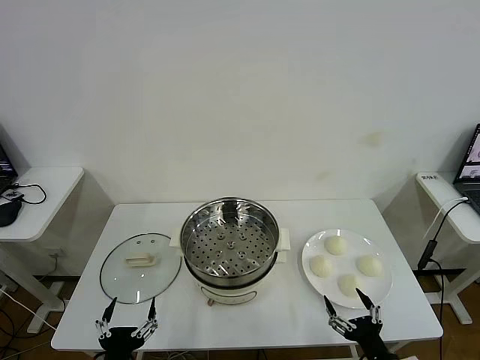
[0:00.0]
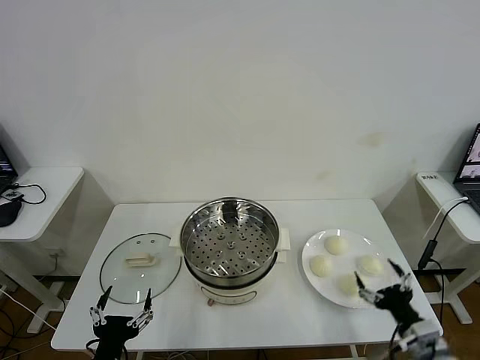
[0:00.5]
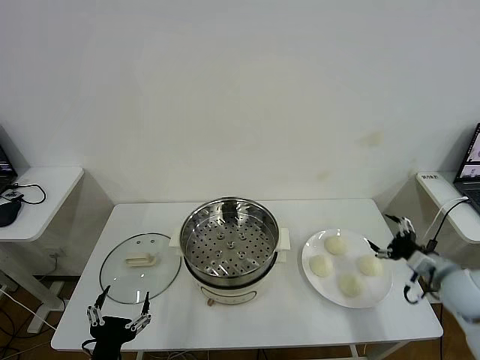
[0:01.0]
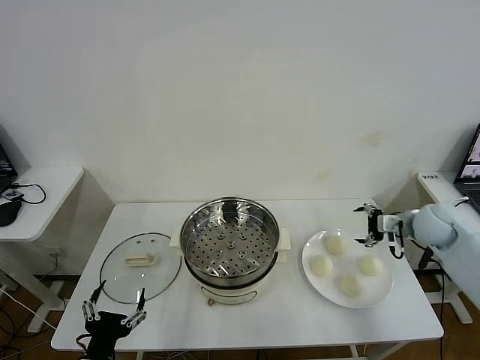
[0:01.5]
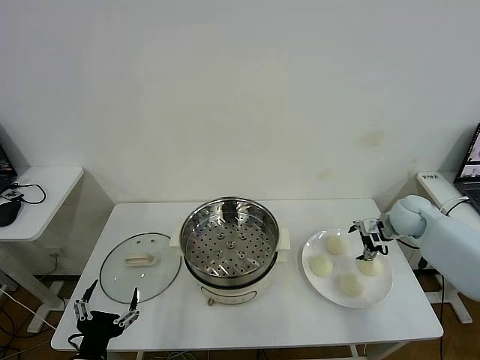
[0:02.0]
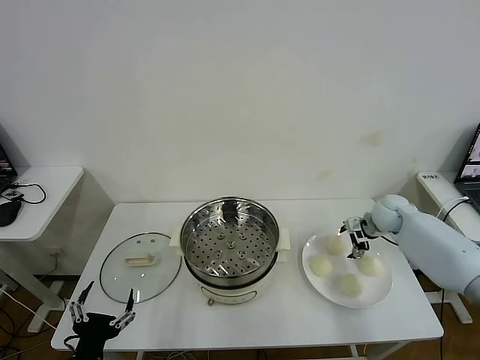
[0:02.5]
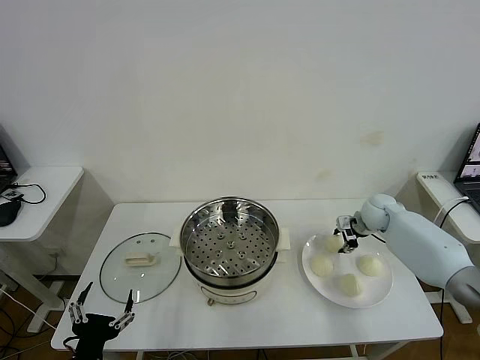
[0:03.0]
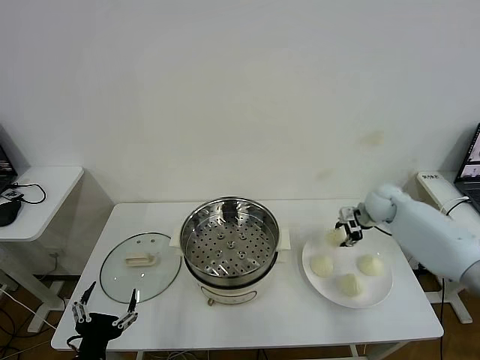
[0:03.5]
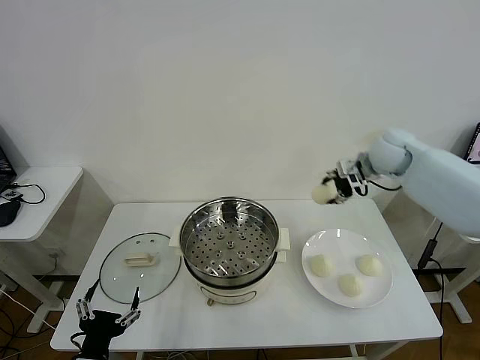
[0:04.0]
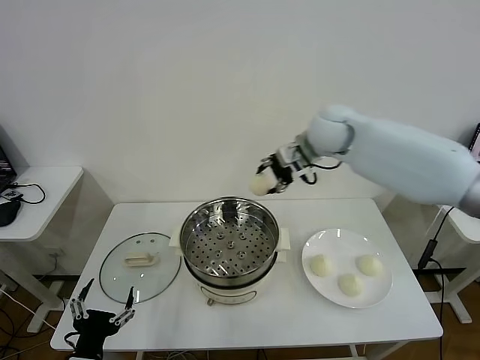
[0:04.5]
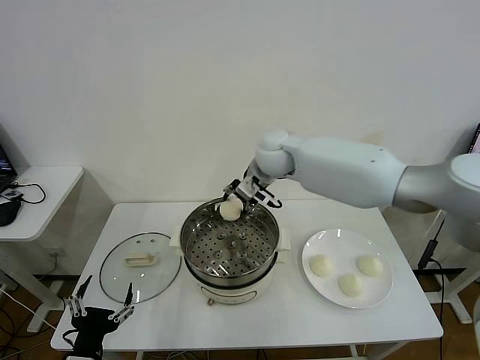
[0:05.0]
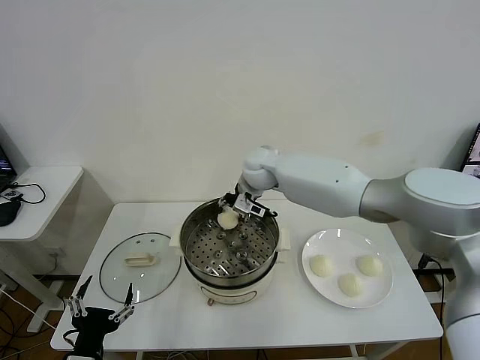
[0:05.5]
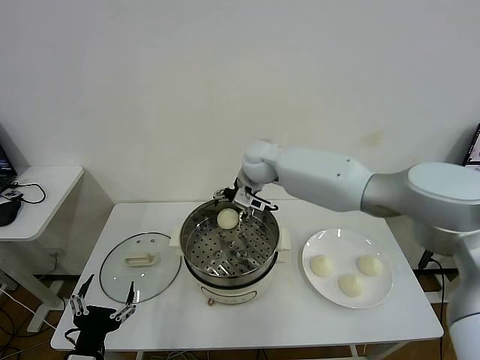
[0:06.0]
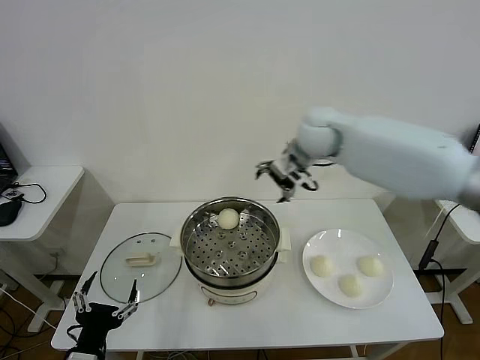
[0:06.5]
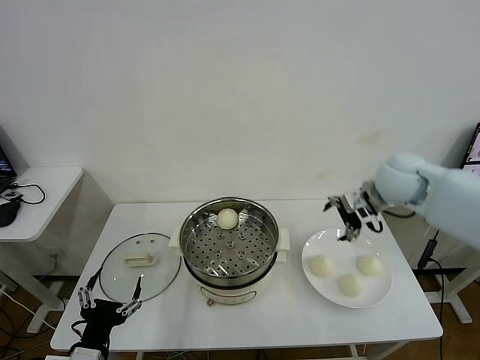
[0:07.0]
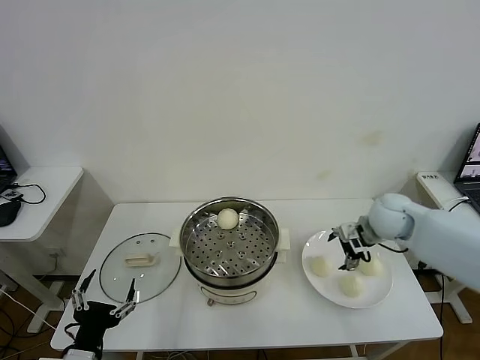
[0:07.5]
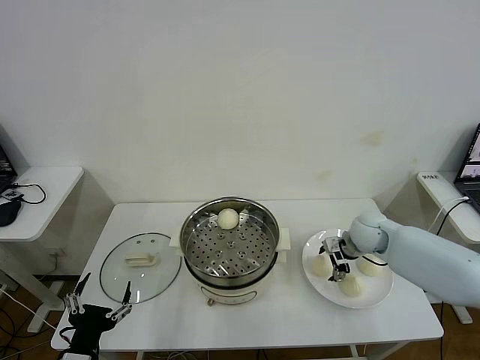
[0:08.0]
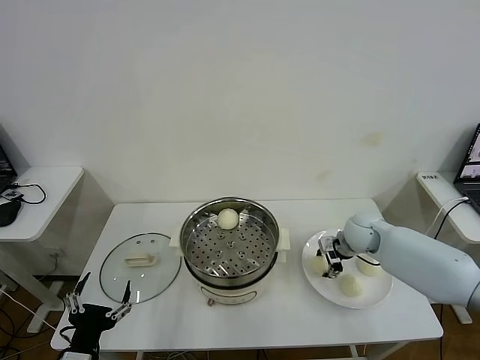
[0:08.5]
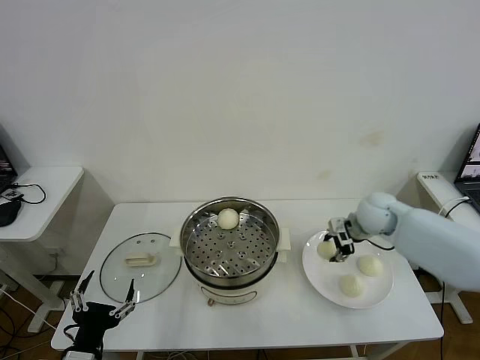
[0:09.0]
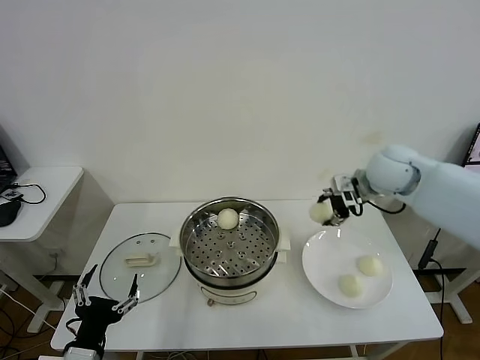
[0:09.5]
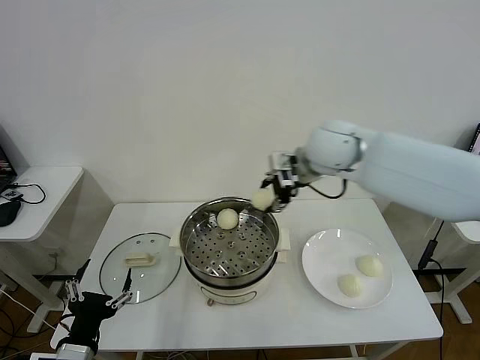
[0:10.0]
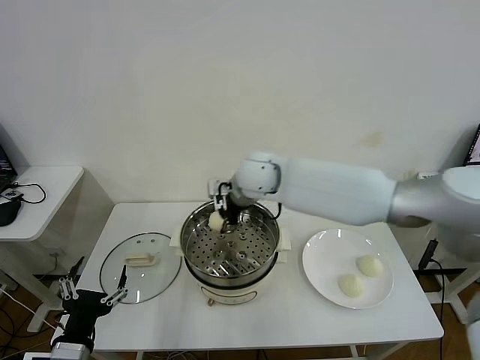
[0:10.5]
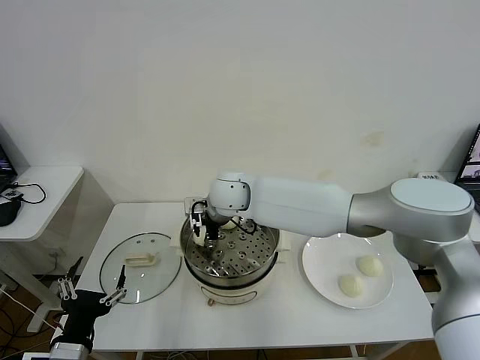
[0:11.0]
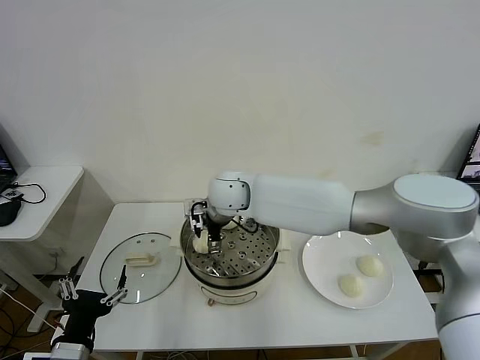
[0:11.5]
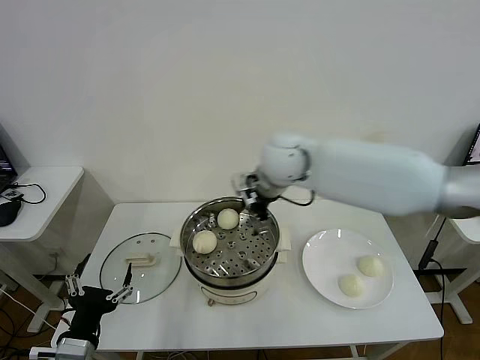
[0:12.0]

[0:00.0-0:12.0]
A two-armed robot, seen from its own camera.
Task of the whole recording: take steamed baozi put them in steamer then cover it.
Step, 0:00.0 to 0:03.0: Grasp the baozi in the plate with right gripper.
Step, 0:03.5 to 0:05.5: Place the baozi on the steamer with right gripper.
Step, 0:06.0 to 0:08.5: Grasp the baozi in the plate with right gripper.
Step, 0:09.0 to 0:11.5: Place the baozi on the steamer with right gripper.
0:02.0 to 0:04.0: The right gripper goes some 15 cm upward and to the left, and closes.
0:04.0 to 0:06.0: The right gripper moves to the left, some 30 cm, and opens.
0:06.0 to 0:08.0: The right gripper is displaced to the right and downward by some 30 cm.
0:08.0 to 0:10.0: The right gripper goes approximately 30 cm upward and to the left, and closes up.
0:10.0 to 0:12.0: The right gripper is displaced to the left by about 10 cm, and opens its fingers.

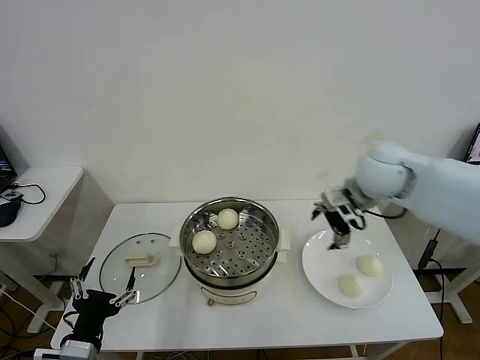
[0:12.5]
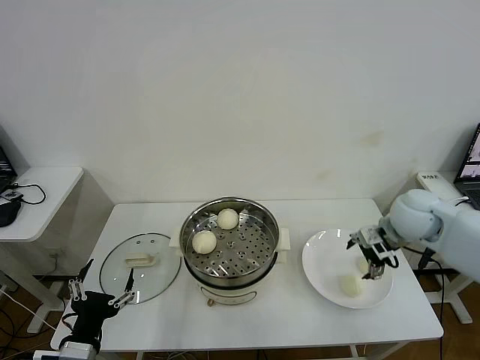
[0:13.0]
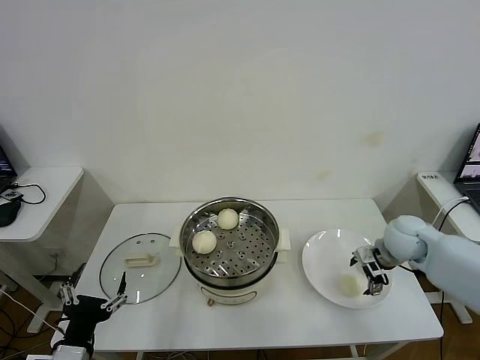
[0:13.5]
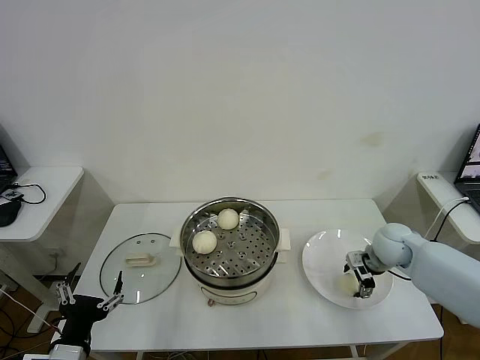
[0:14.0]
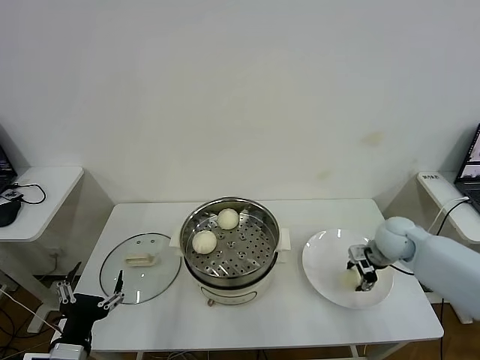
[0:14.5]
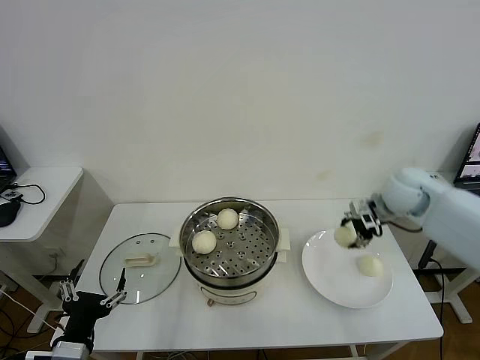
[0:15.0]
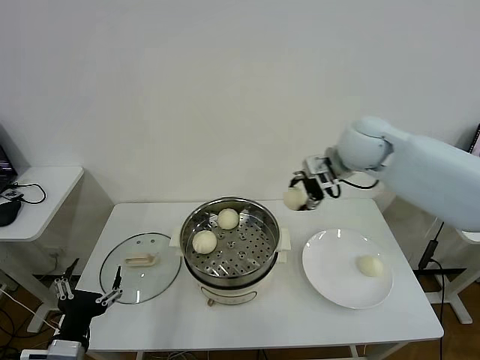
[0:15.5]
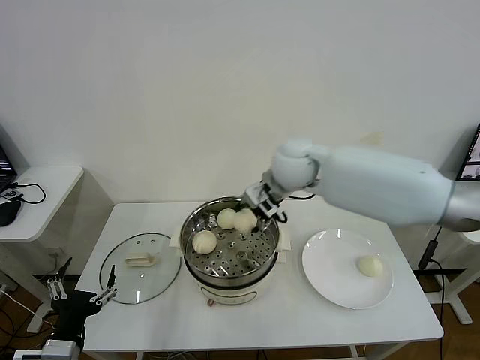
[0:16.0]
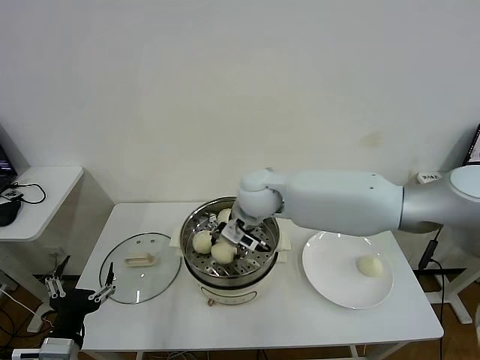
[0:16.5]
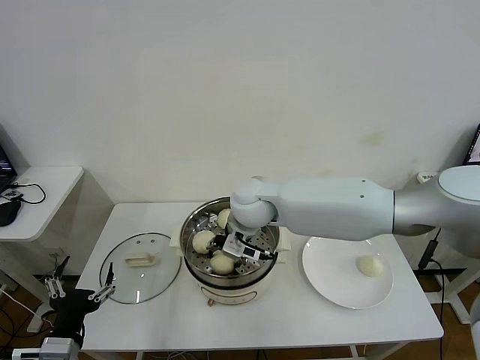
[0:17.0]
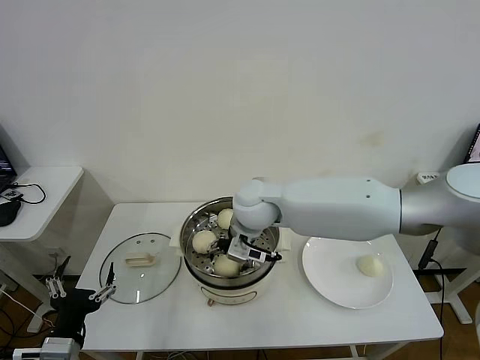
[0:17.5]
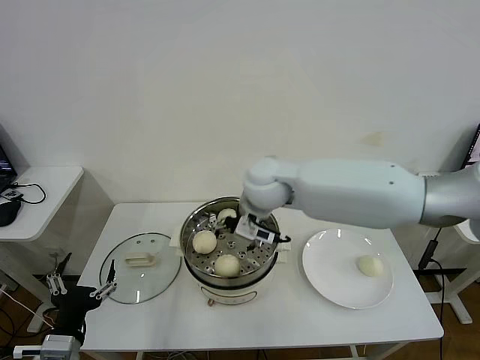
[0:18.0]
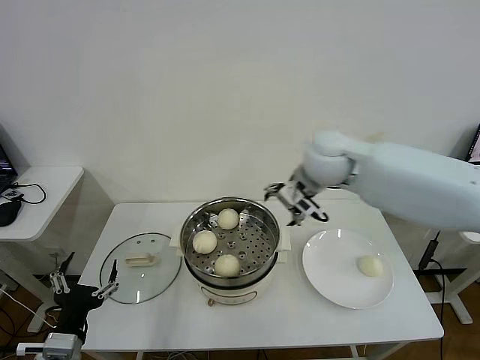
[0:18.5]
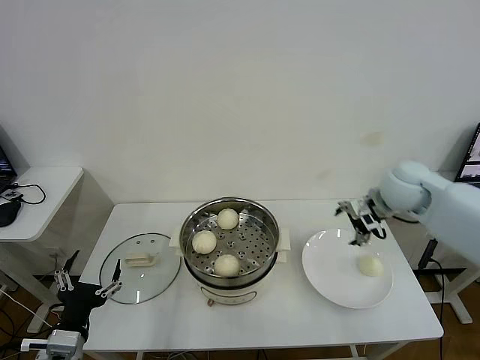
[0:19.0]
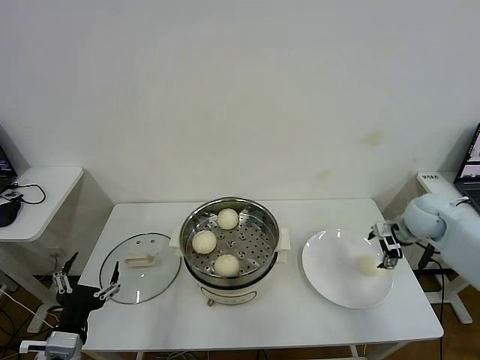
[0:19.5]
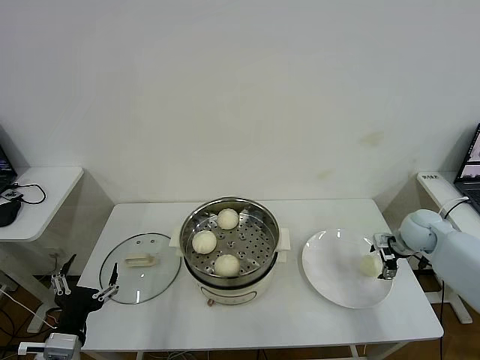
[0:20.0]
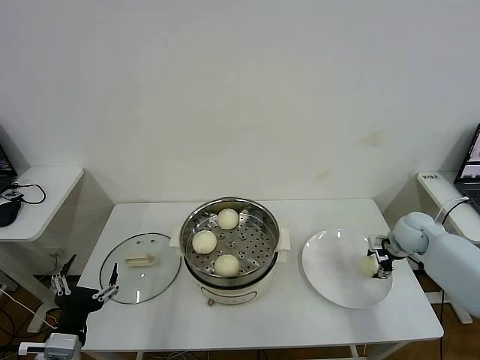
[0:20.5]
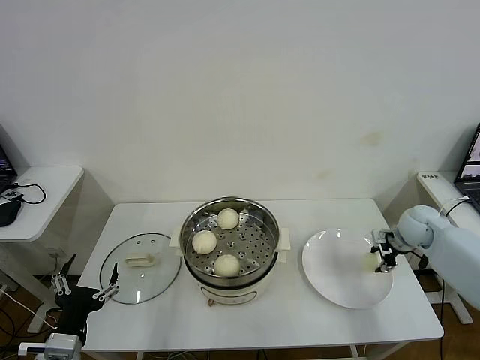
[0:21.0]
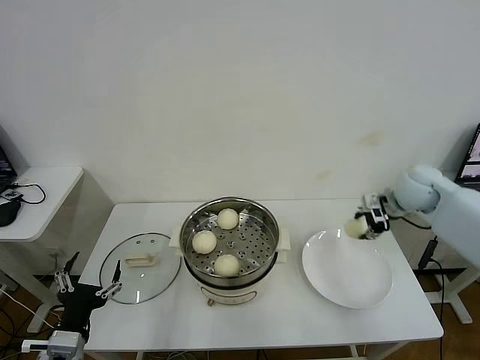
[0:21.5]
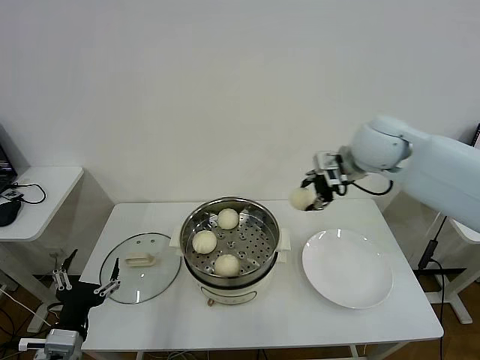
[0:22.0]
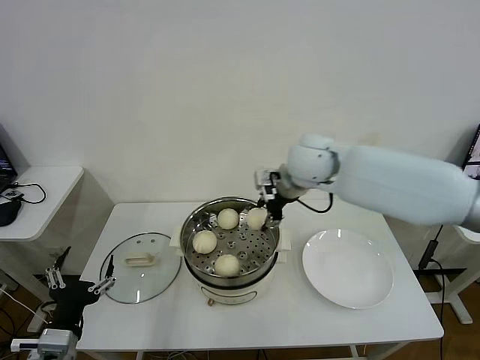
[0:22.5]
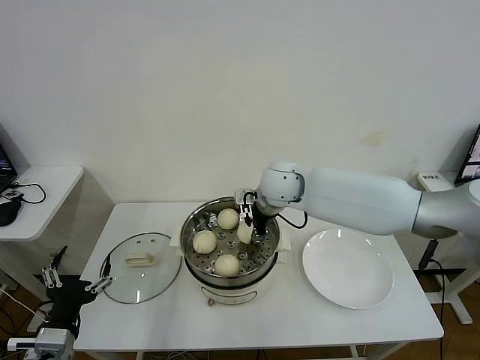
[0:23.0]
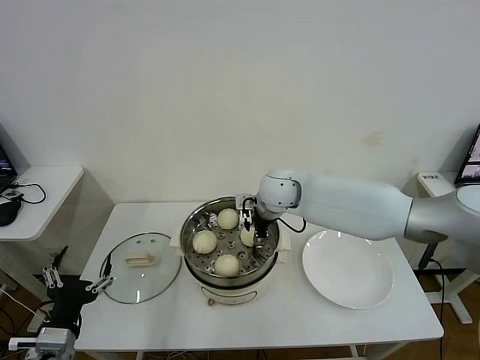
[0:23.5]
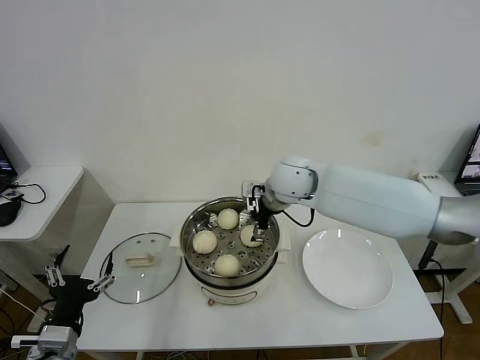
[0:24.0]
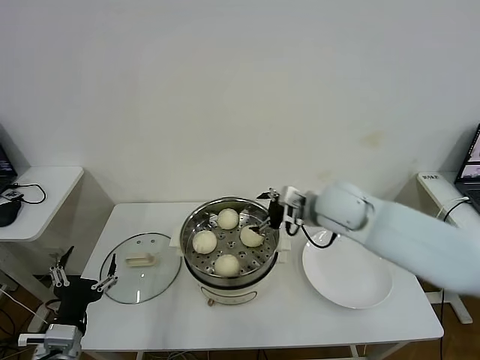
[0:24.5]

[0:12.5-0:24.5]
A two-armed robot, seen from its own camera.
Task of the whole recording: take steamed baozi put them in steamer then cover it.
Step, 0:12.5 to 0:14.0: Grasp the baozi in the plate with right gripper.
Step, 0:14.5 to 0:17.5: Place the baozi on the steamer with right gripper.
Step, 0:18.0 to 0:20.5: Grasp the baozi in the plate with right gripper.
Step, 0:21.0 to 0:23.5: Place the baozi on the steamer with right gripper.
0:12.5 to 0:14.5: The right gripper moves downward and to the right, roughly 25 cm, and closes.
0:14.5 to 0:16.5: The right gripper goes roughly 35 cm to the left and upward.
0:16.5 to 0:18.5: The right gripper shifts roughly 15 cm to the right and upward, and opens.
0:18.5 to 0:20.5: The right gripper heads to the right and downward, covering roughly 35 cm, and closes up.
0:20.5 to 0:22.5: The right gripper is displaced to the left and upward by roughly 35 cm, and closes.
0:22.5 to 0:24.5: The right gripper goes some 5 cm downward, and opens its fingers.

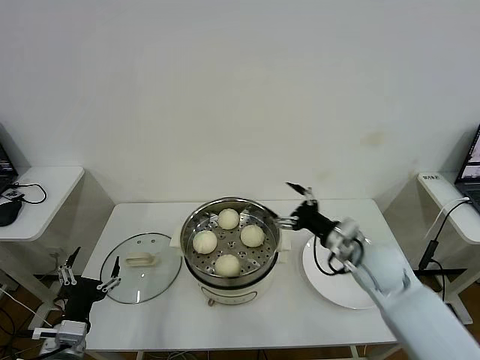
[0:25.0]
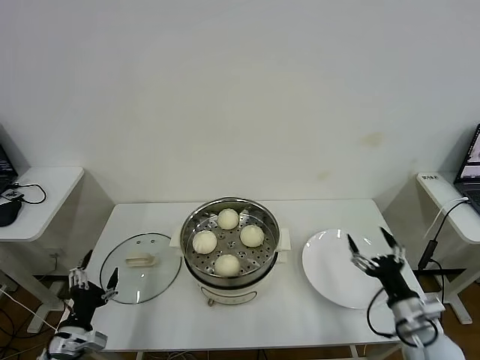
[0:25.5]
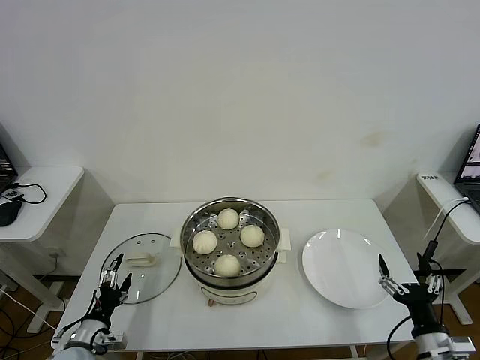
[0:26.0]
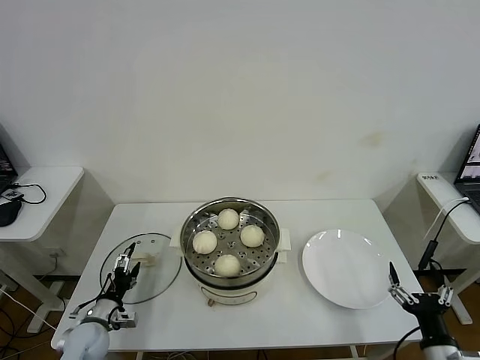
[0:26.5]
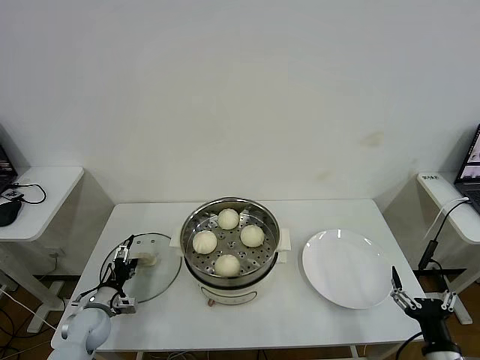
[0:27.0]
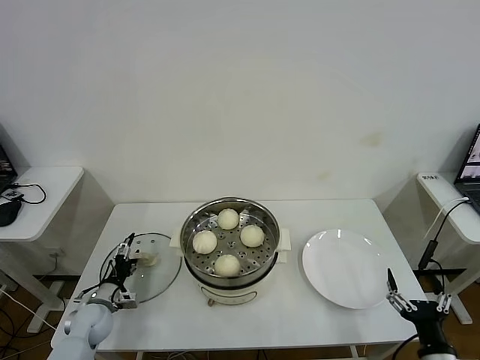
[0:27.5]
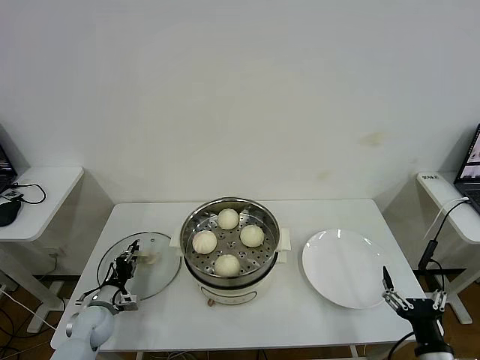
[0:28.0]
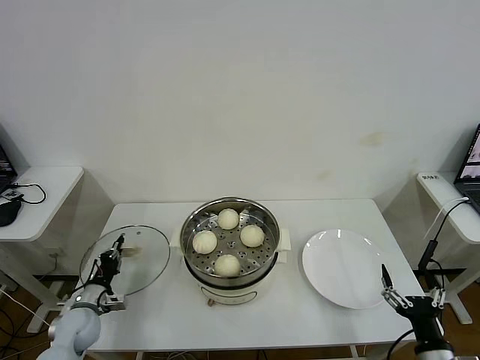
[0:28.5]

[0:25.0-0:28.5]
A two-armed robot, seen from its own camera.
Task of the whole recording: take steamed baozi put them in steamer then cover it.
Step, 0:25.0 to 0:28.0: Grasp the pot lid with left gripper.
0:25.0 to 0:27.0: The left gripper is displaced downward and forward by approximately 20 cm. Meanwhile the right gripper heads backward, to the right and downward, covering approximately 30 cm.
0:27.0 to 0:28.5: The left gripper closes its fingers.
